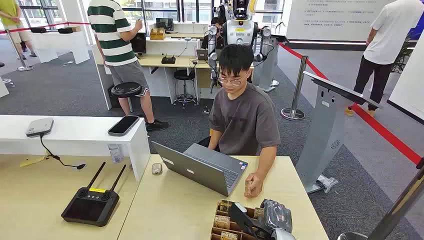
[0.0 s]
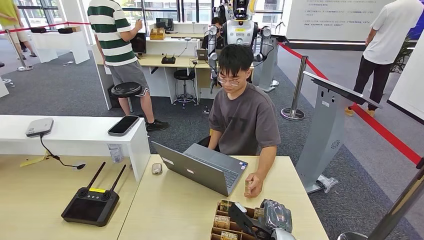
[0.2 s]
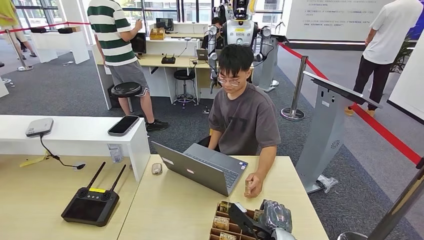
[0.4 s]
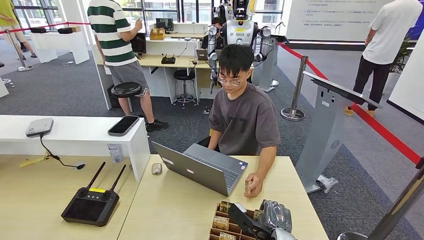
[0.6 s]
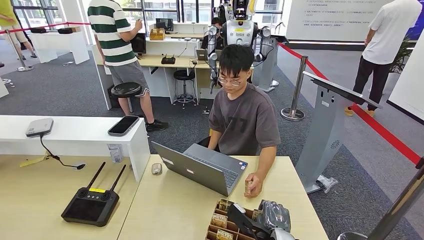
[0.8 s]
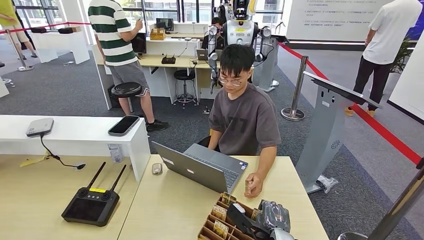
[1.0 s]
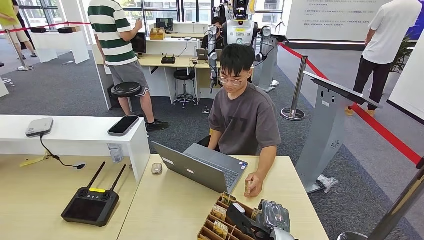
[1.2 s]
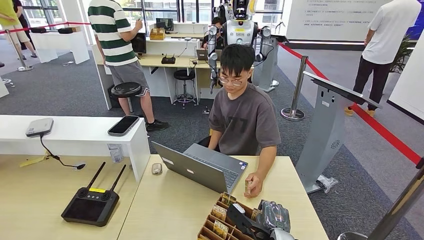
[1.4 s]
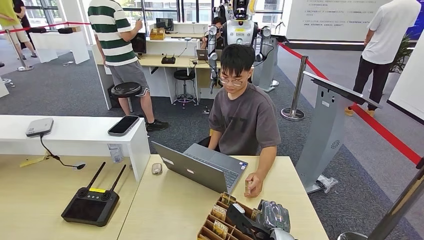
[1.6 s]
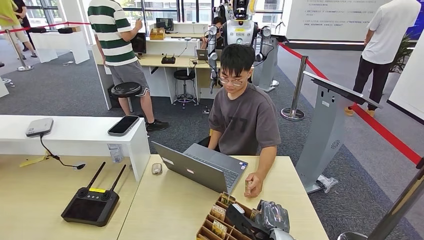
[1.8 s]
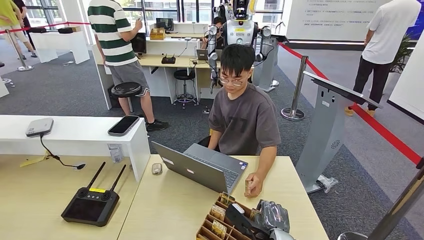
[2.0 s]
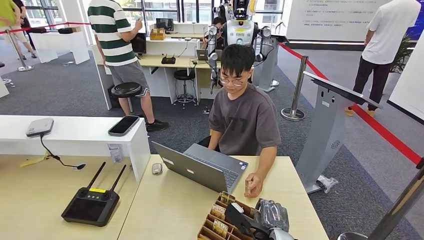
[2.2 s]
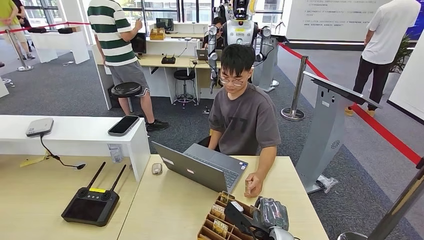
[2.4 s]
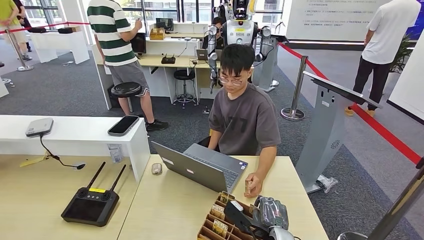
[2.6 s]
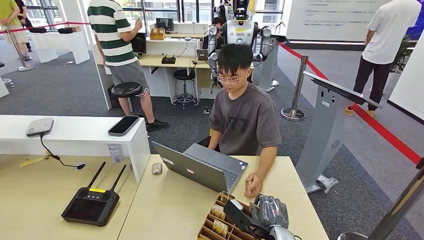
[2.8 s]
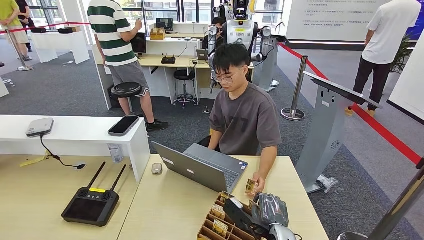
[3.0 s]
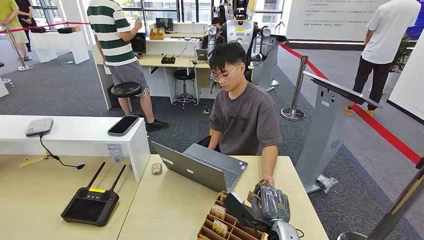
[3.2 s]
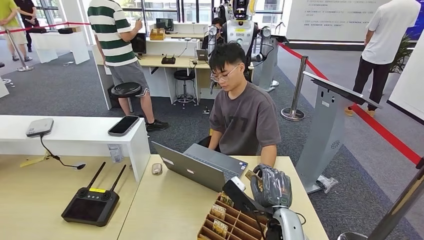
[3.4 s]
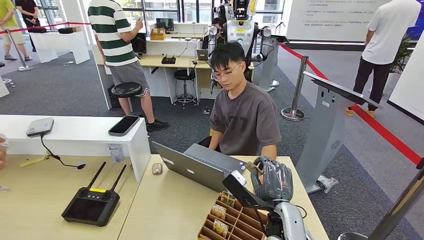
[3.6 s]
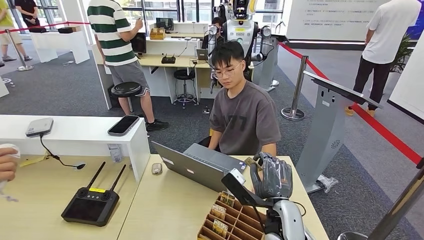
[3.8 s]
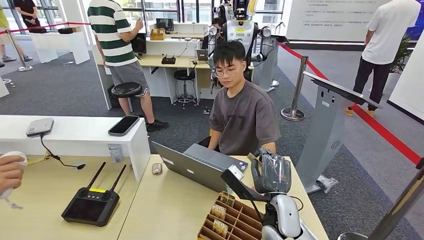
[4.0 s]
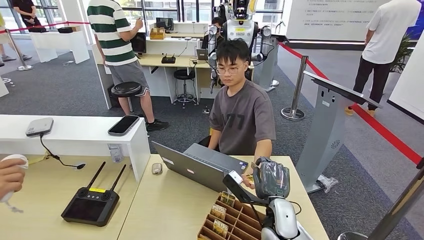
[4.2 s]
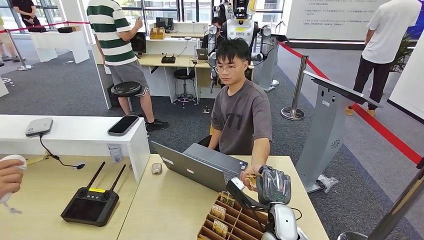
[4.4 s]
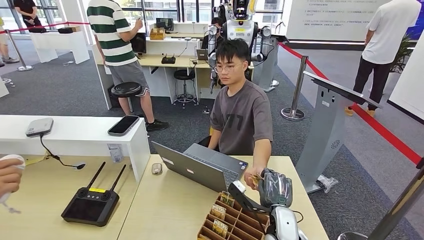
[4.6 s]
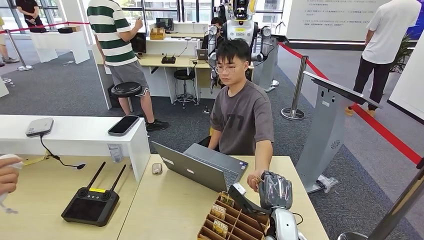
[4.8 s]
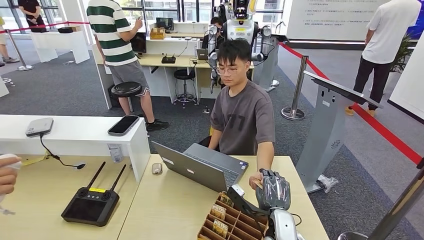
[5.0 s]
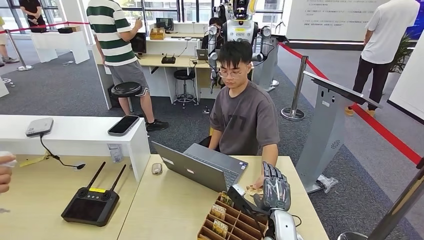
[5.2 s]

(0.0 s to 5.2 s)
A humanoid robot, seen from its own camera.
Step, 0.0 s - 2.4 s: Pick up the key card from the card box.
Step, 4.6 s - 5.2 s: Hand the key card to the target.
1.8 s - 3.4 s: The right hand heads upward, covering about 10 cm.
3.4 s - 5.2 s: The right hand shifts approximately 5 cm downward.
